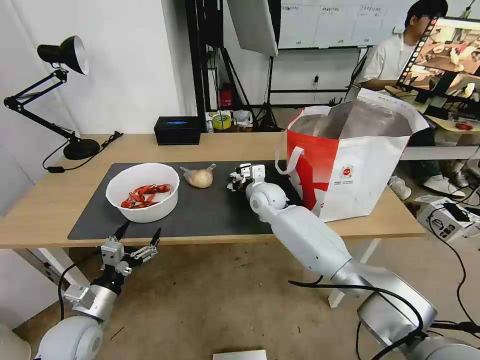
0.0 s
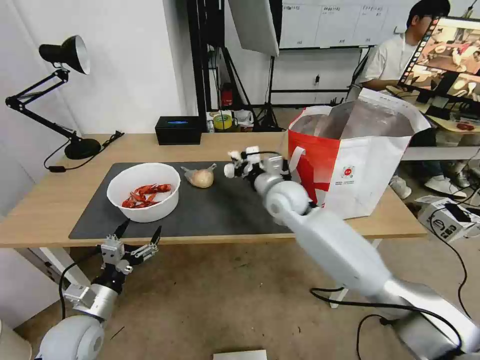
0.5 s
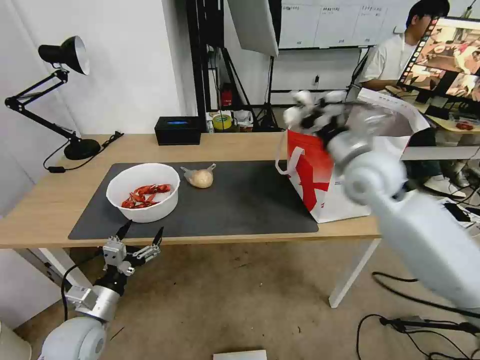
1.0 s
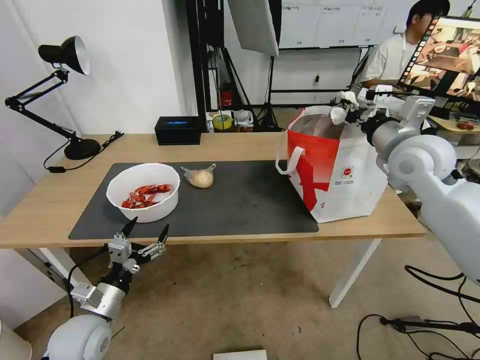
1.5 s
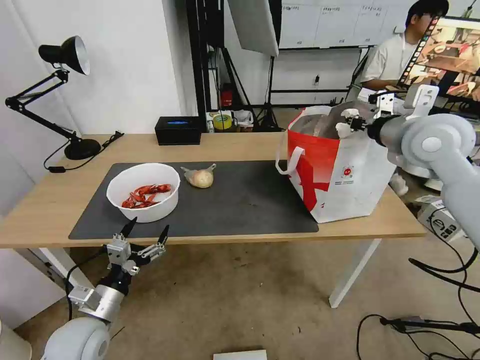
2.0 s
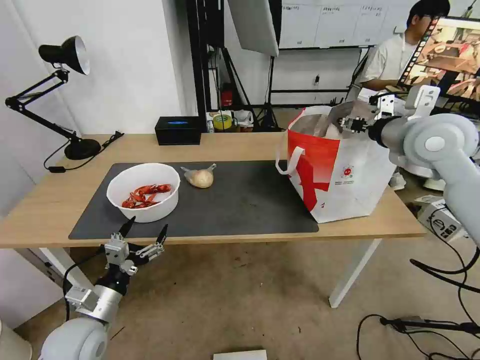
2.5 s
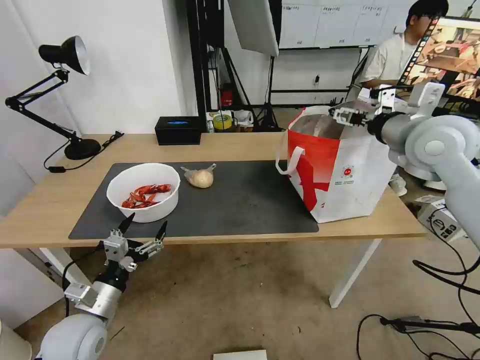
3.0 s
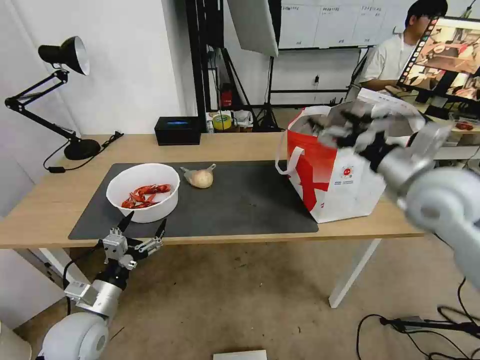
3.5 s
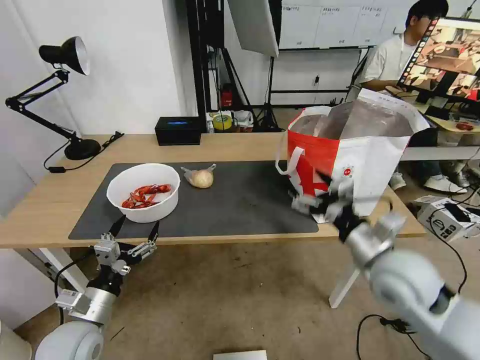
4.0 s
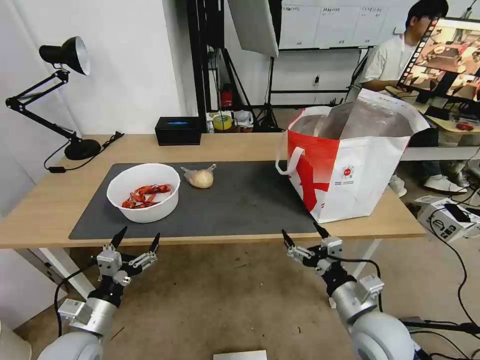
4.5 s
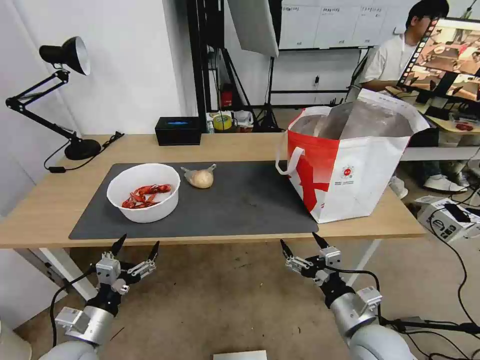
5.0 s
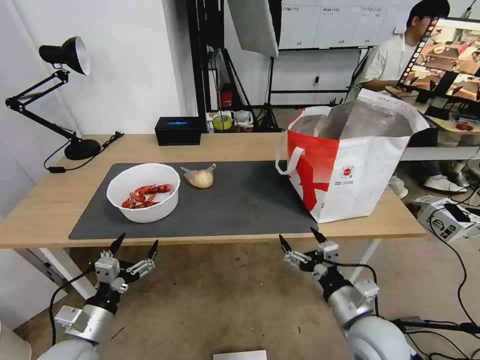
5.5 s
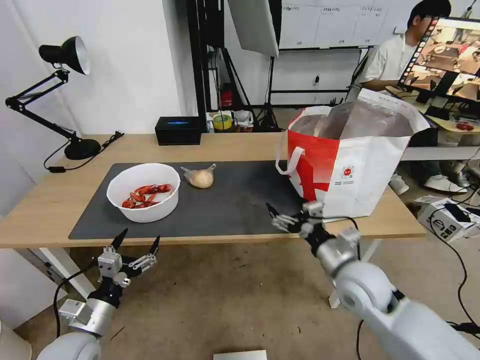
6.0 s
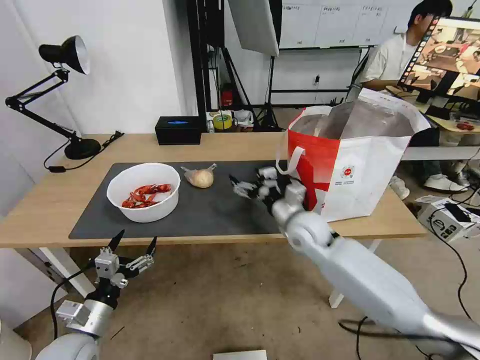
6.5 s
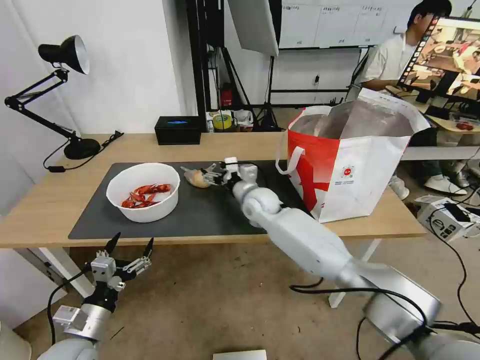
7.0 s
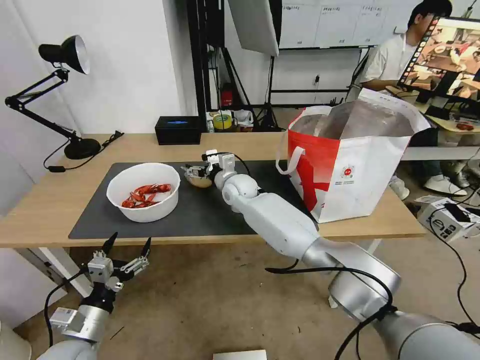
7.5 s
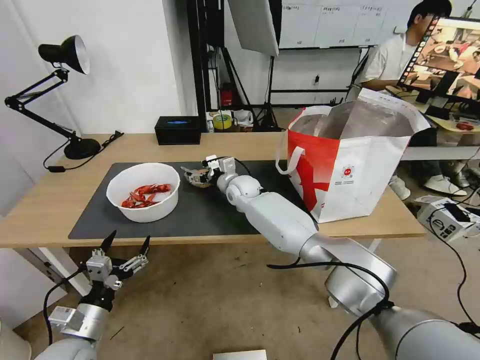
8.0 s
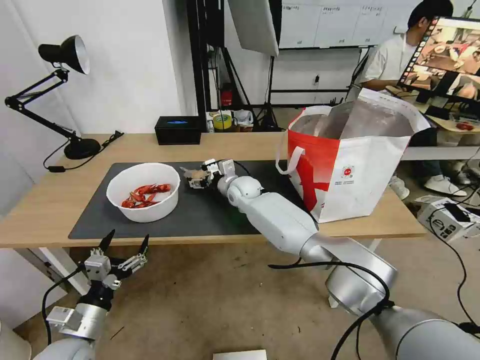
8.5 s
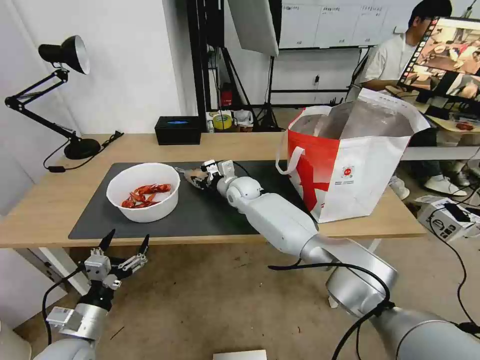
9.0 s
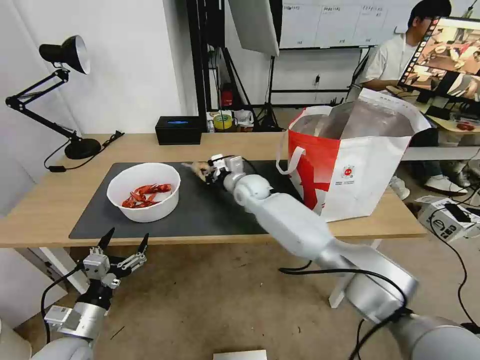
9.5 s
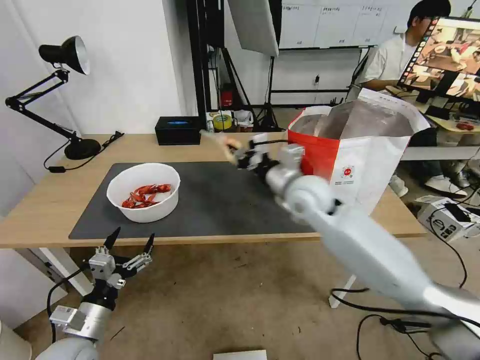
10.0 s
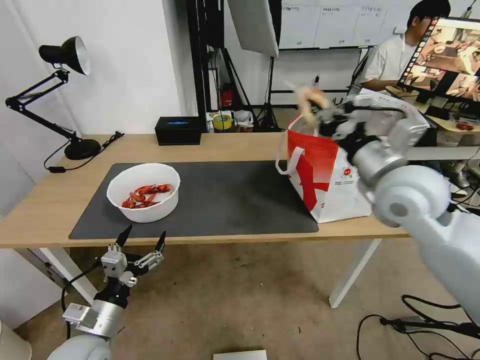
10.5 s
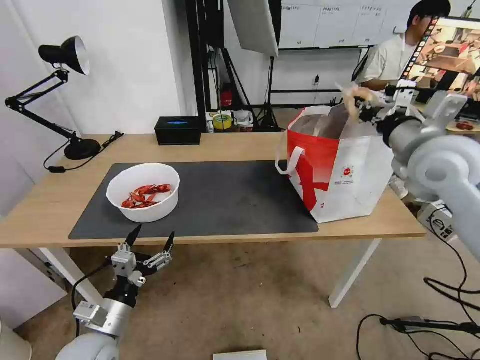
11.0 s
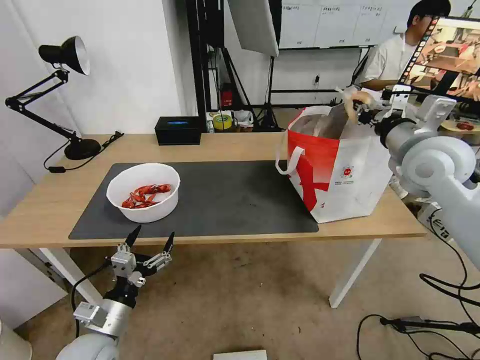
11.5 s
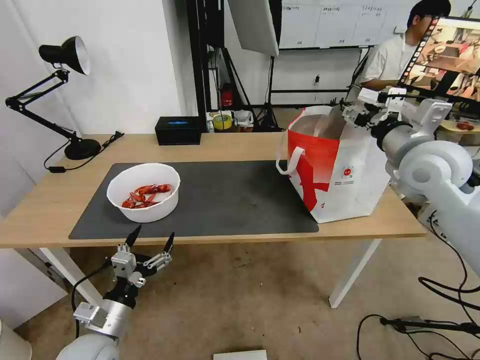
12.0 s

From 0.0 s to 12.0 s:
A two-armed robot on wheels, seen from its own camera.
Task of the whole recording: Pick up the trash from the table and place it into the takeout bag.
From 0.0 s to 2.0 s: The right gripper heads upward and to the right, covering about 35 cm.
From 2.0 s to 4.0 s: The right gripper goes approximately 25 cm downward and backward, and opens its fingers.
From 4.0 s to 6.0 s: The right gripper heads downward, covering about 5 cm, and goes backward and returns, about 10 cm each way.
From 6.0 s to 8.0 s: The right gripper goes some 35 cm forward and to the left.
From 8.0 s to 10.0 s: The right gripper shifts about 25 cm backward, to the right and upward, and closes.
From 10.0 s to 12.0 s: The right gripper goes some 20 cm to the right and upward, and opens.

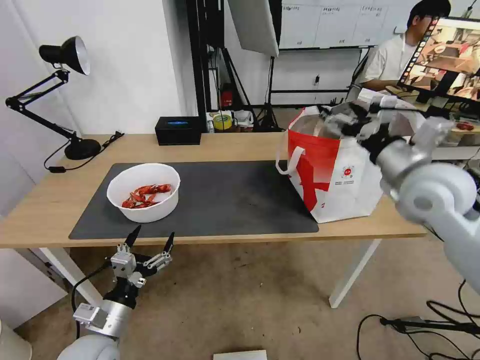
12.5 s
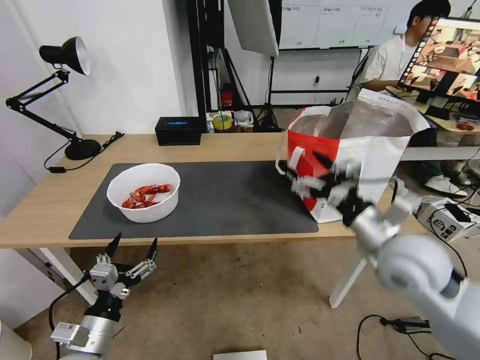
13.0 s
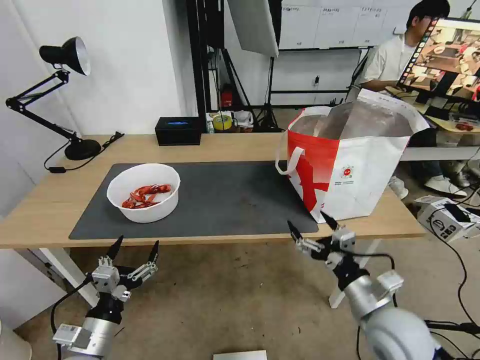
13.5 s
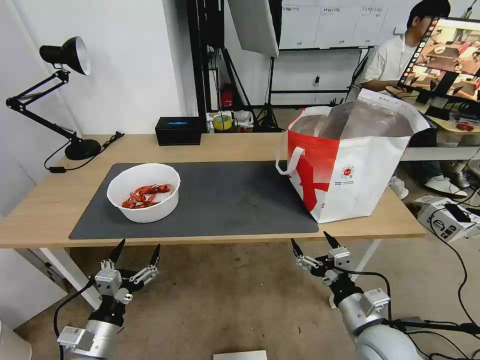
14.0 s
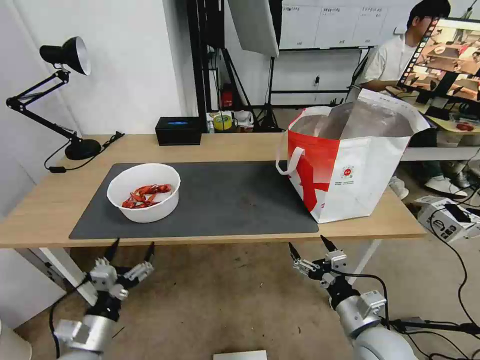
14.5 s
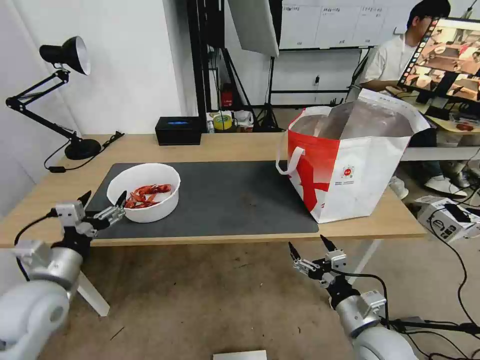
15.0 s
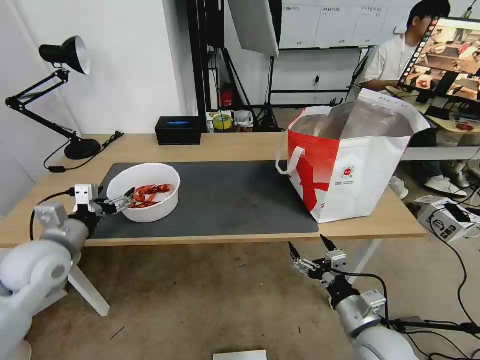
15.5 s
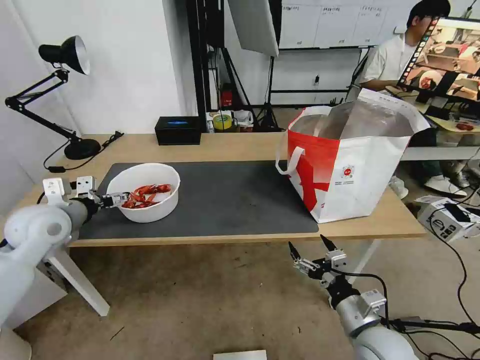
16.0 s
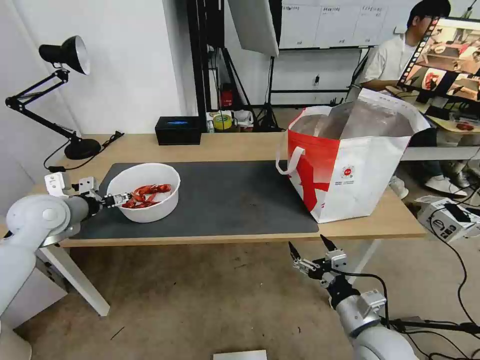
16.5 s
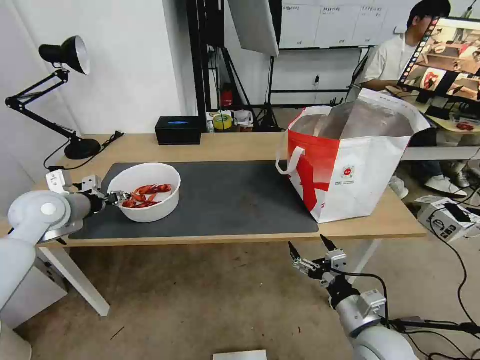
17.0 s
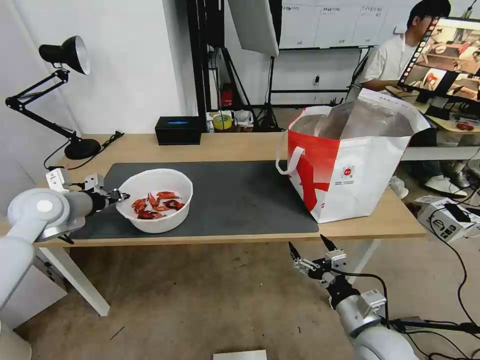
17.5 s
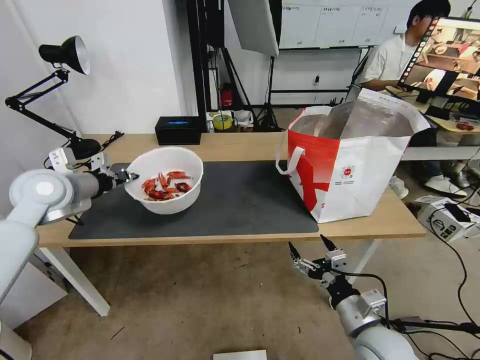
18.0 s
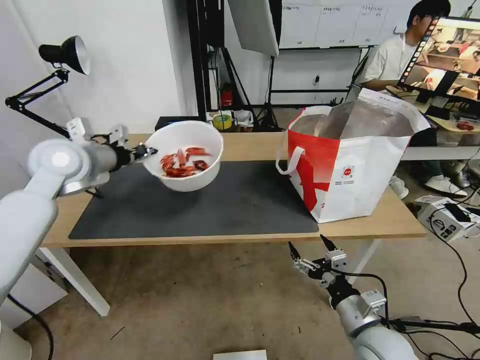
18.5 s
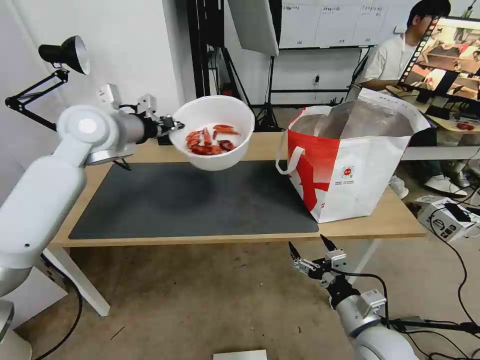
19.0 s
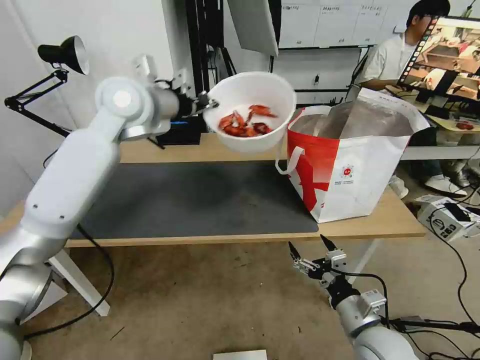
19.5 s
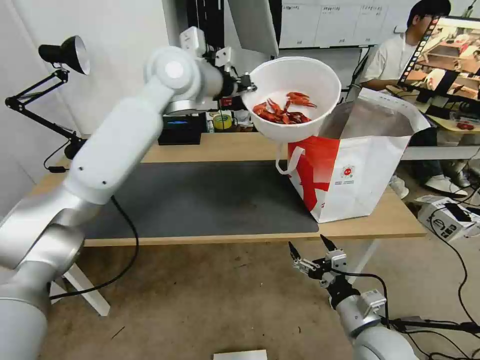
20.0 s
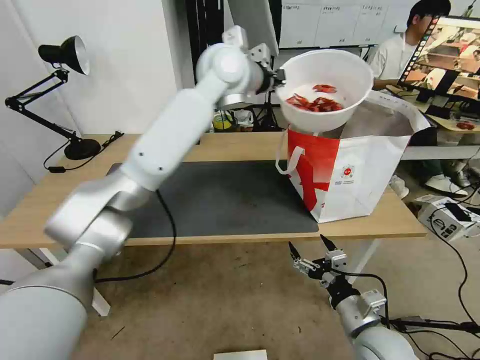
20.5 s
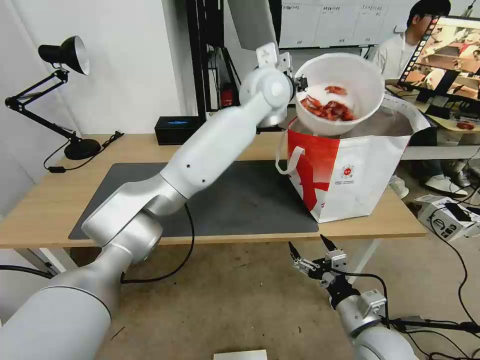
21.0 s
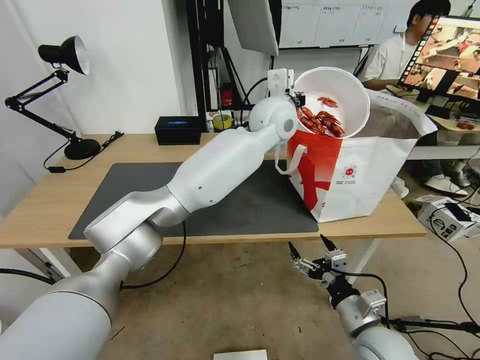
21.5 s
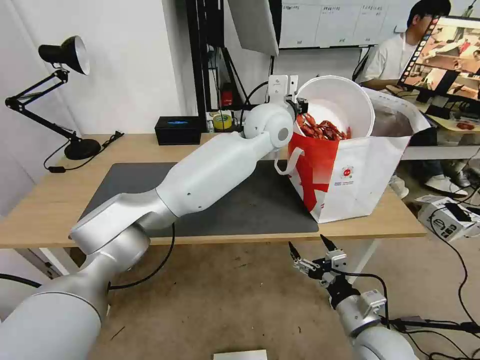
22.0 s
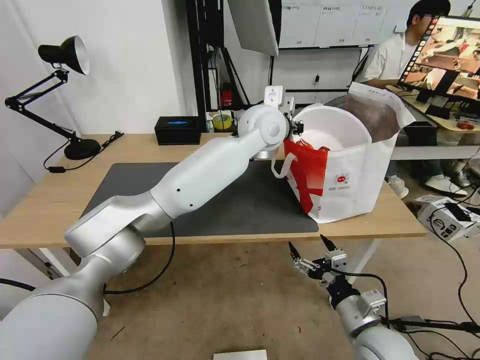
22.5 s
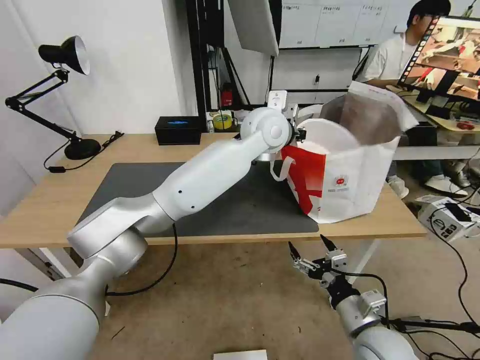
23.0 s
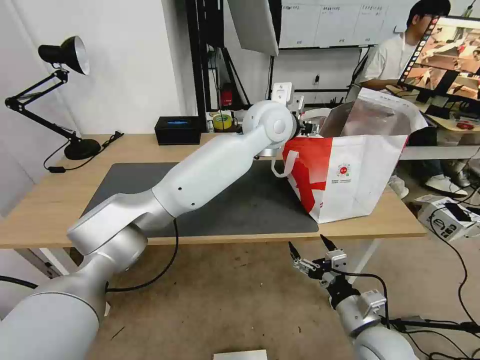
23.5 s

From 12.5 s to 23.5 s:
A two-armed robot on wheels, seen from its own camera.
Task of the whole recording: Pick up the trash from the table and place it into the takeout bag.
From 12.5 s to 14.5 s: The right gripper goes about 30 cm downward and backward.
From 14.5 s to 16.0 s: The left gripper heads forward and upward, covering roughly 30 cm.
From 16.0 s to 18.0 s: The left gripper goes roughly 5 cm upward, and closes up.
From 18.0 s to 20.0 s: The left gripper moves to the right, upward and forward, about 35 cm.
From 20.0 s to 21.5 s: The left gripper moves to the right and downward, about 20 cm.
From 21.5 s to 23.5 s: The left gripper opens.

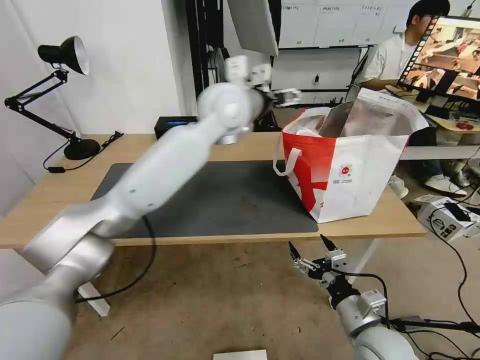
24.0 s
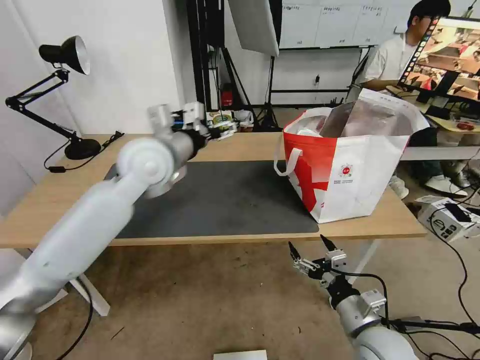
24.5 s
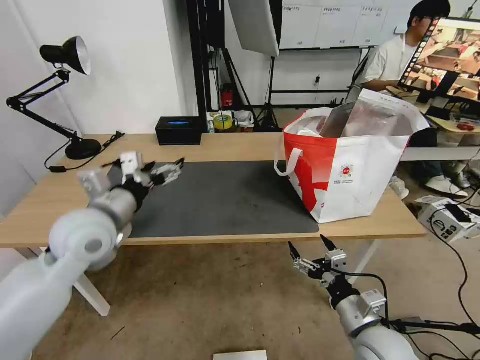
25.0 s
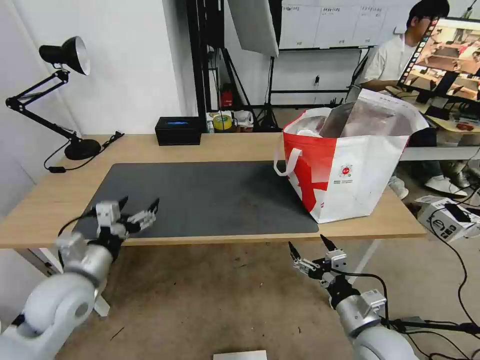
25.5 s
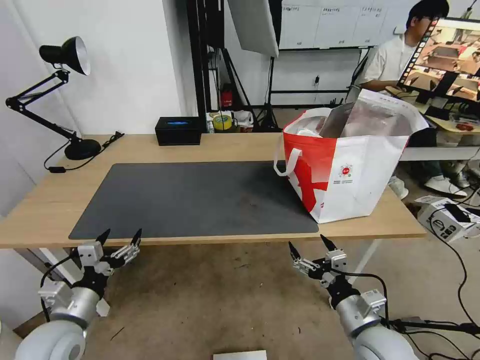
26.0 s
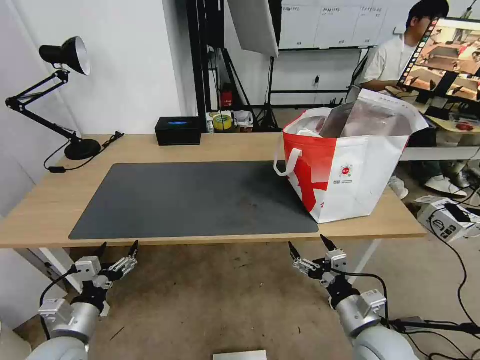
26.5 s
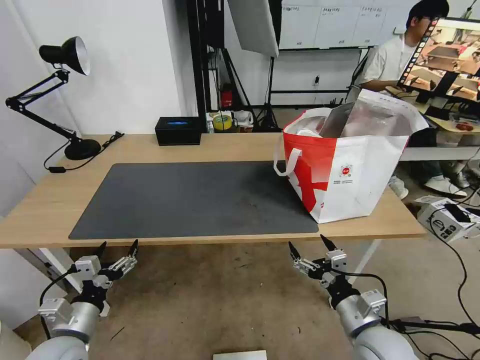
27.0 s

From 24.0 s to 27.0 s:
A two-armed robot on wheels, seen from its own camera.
Task of the whole recording: Pick up the trash from the table and place it into the takeout bag.
From 24.0 s to 25.5 s: The left gripper is displaced to the left, backward and downward by about 50 cm.
From 25.5 s to 27.0 s: The left gripper travels downward and backward by some 10 cm.
